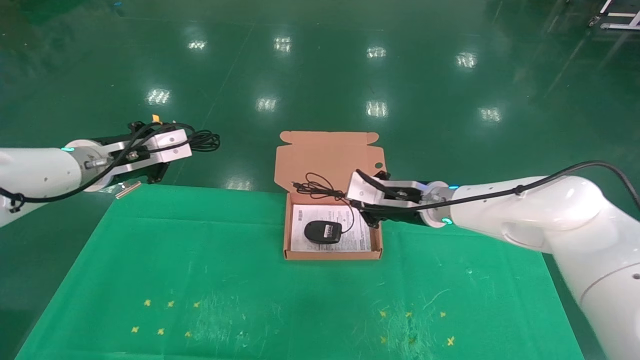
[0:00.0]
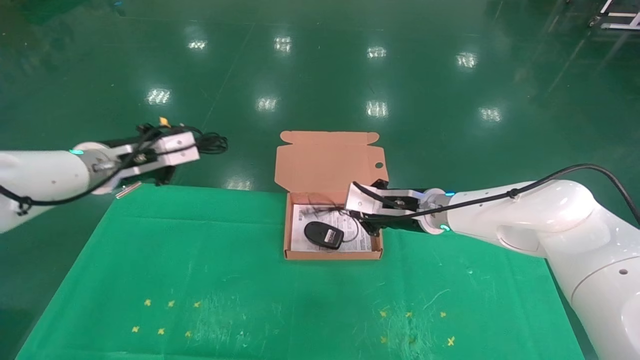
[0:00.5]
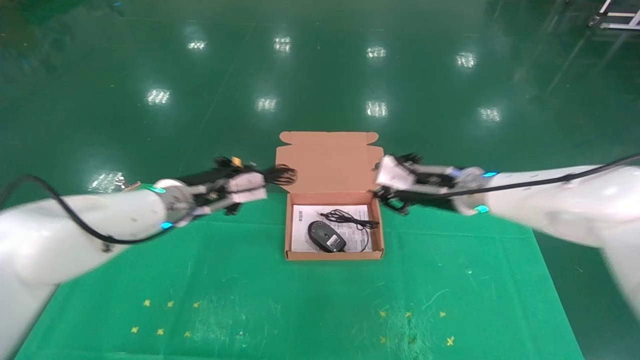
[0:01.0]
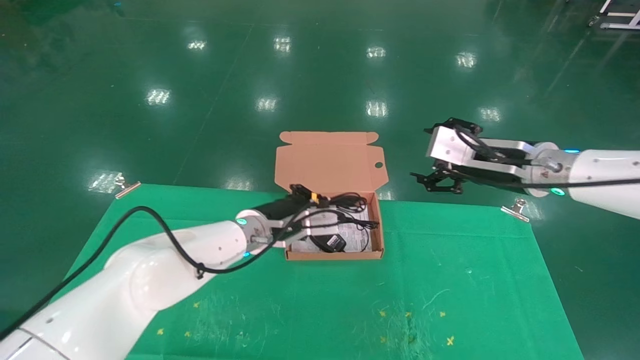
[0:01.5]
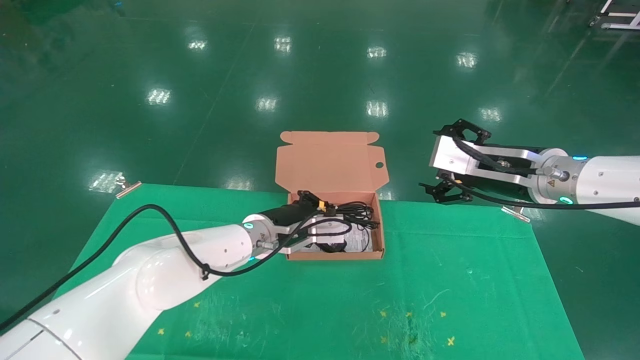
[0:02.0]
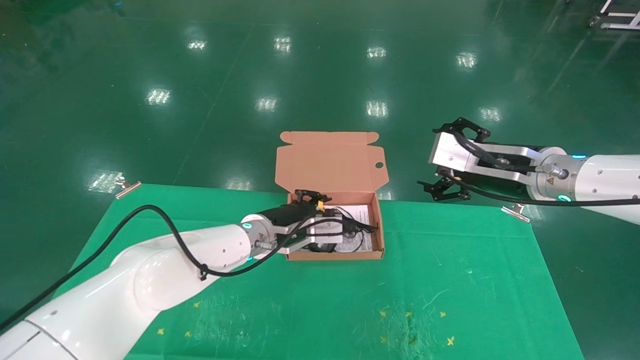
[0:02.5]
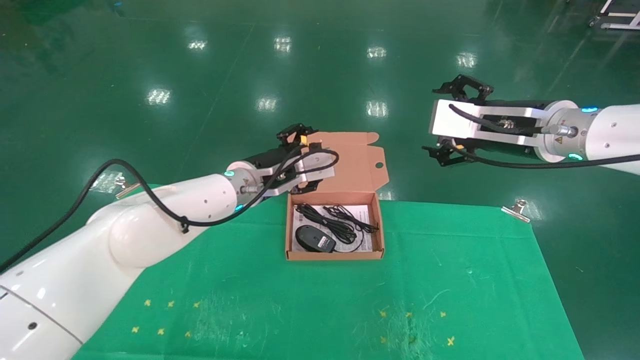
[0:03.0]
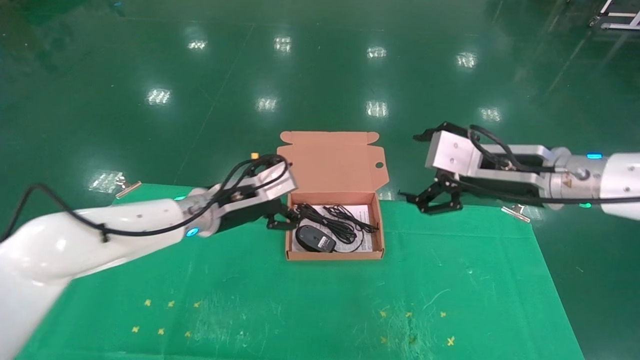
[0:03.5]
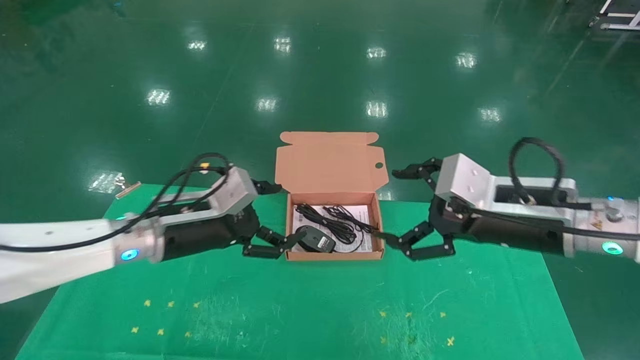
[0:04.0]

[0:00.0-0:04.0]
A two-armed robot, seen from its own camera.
Task of the whole recording: grasp data cable left put into box grasp mouse right put into box.
Step, 0:00.0 to 0:02.5: Place the mouse and power cord into the box.
0:00.0 to 0:02.0: The right gripper heads to the right, backward and upward, covering roughly 15 cm, and opens its fingers. Meanwhile the left gripper travels to the right and downward by some 25 cm.
0:02.0 to 0:04.0: The right gripper moves backward, approximately 5 cm. Meanwhile the left gripper goes approximately 15 cm to the left and backward, and opens.
